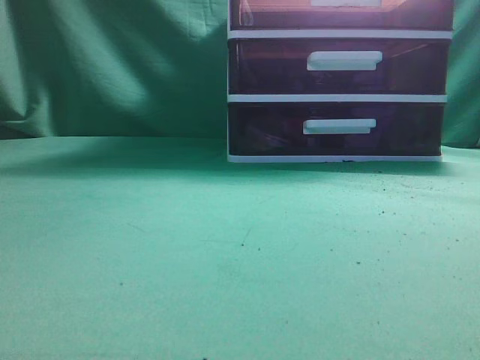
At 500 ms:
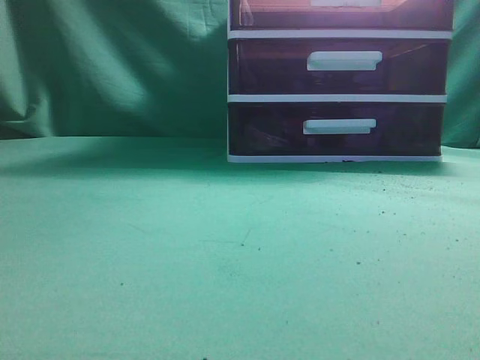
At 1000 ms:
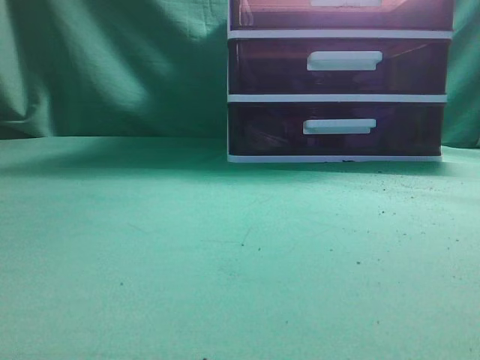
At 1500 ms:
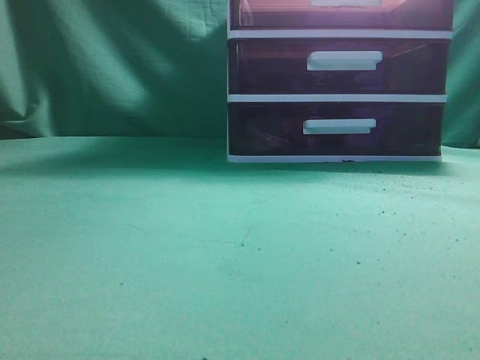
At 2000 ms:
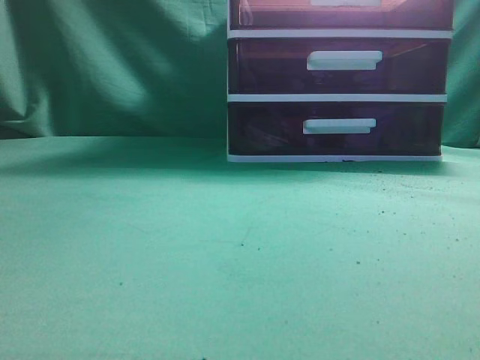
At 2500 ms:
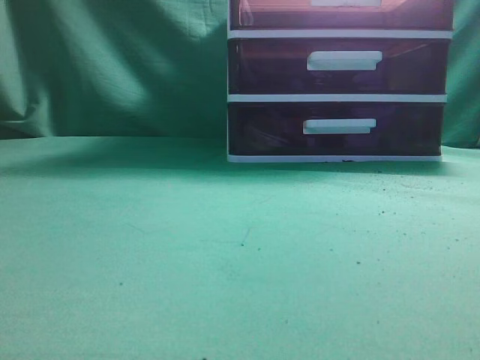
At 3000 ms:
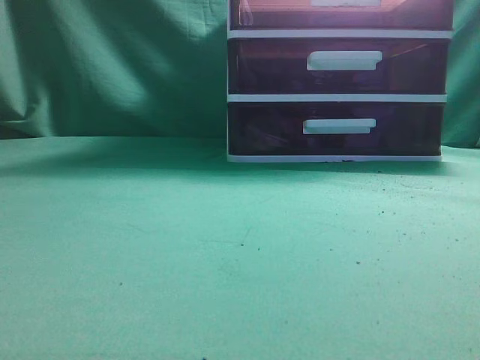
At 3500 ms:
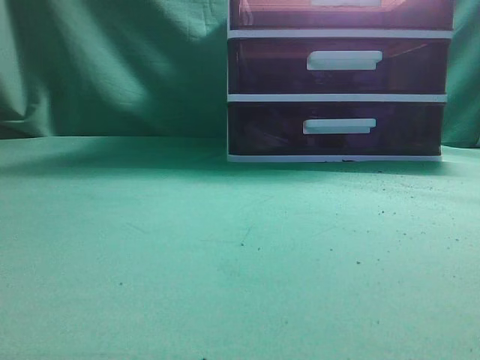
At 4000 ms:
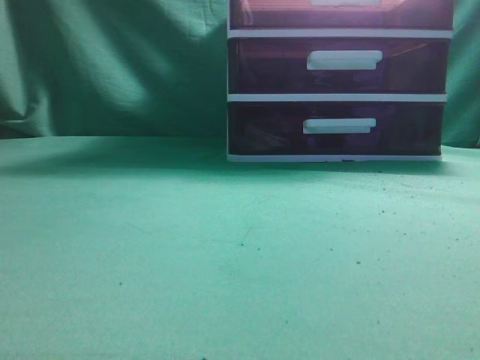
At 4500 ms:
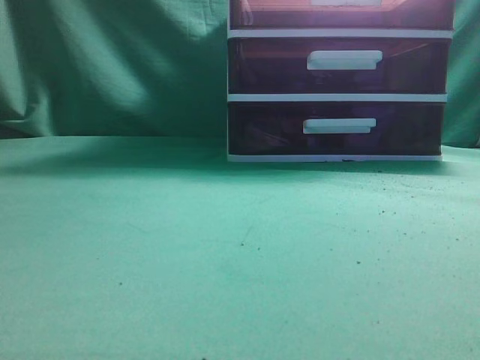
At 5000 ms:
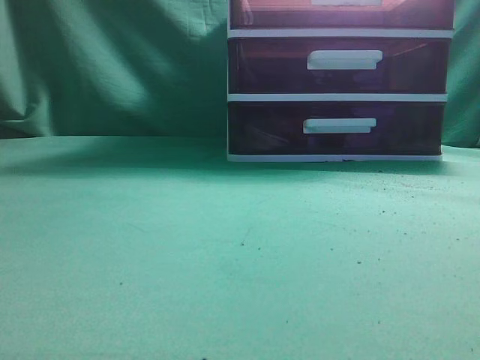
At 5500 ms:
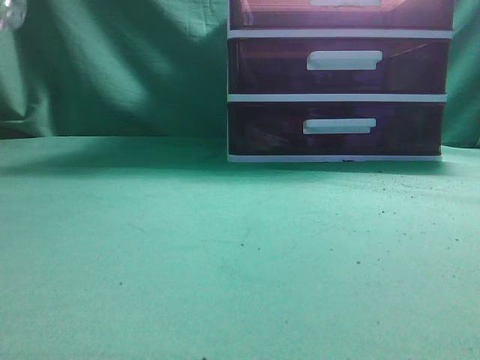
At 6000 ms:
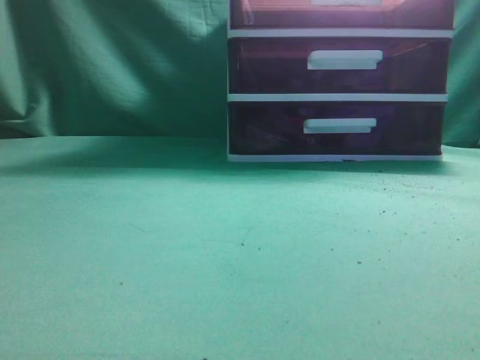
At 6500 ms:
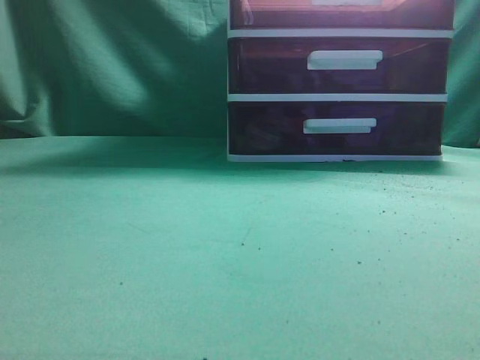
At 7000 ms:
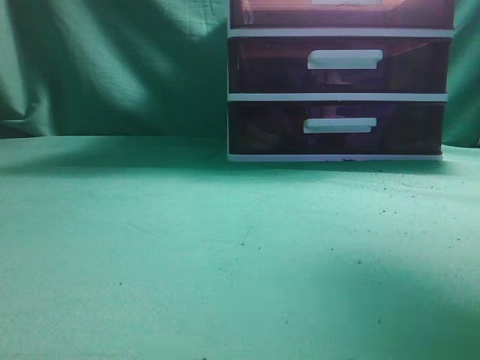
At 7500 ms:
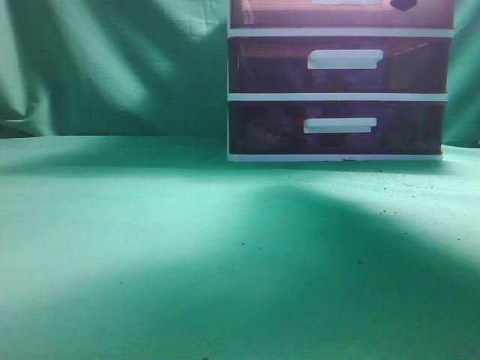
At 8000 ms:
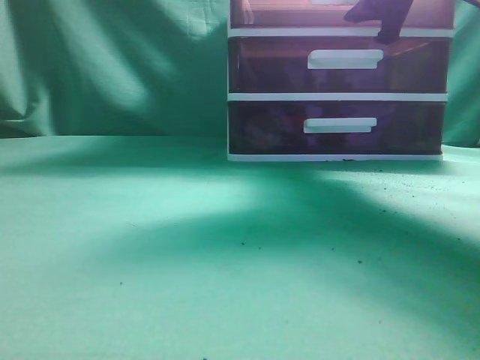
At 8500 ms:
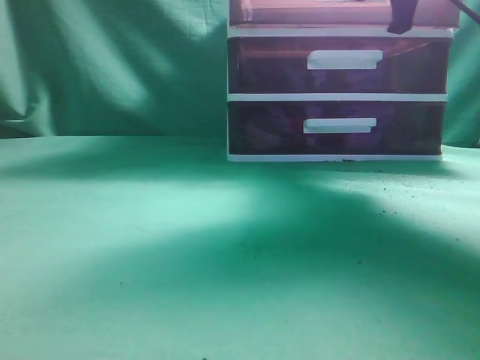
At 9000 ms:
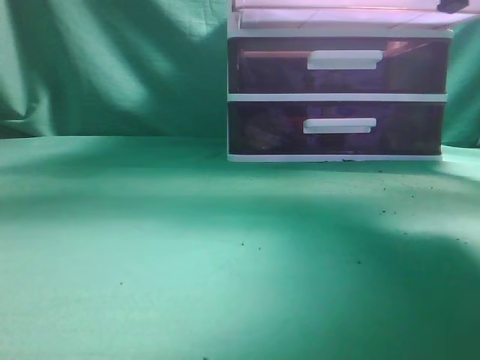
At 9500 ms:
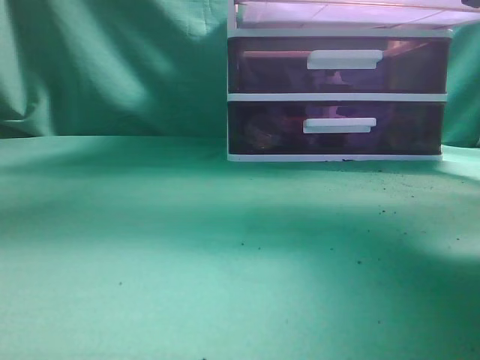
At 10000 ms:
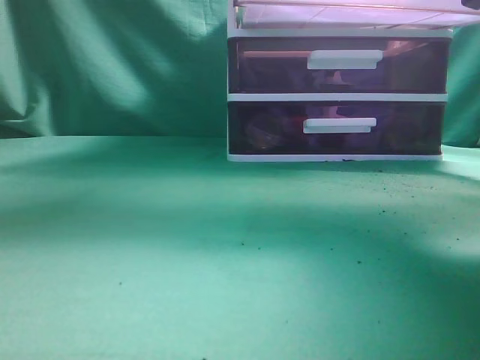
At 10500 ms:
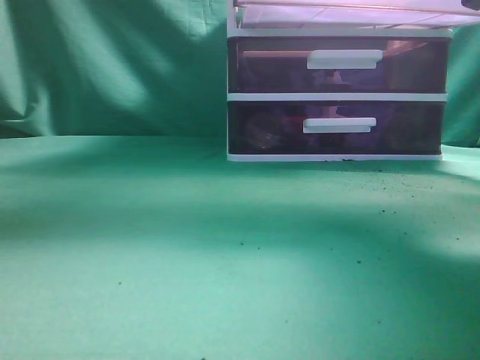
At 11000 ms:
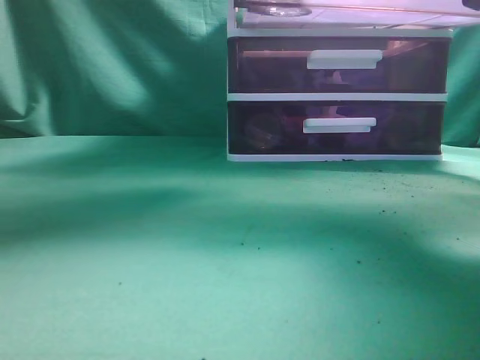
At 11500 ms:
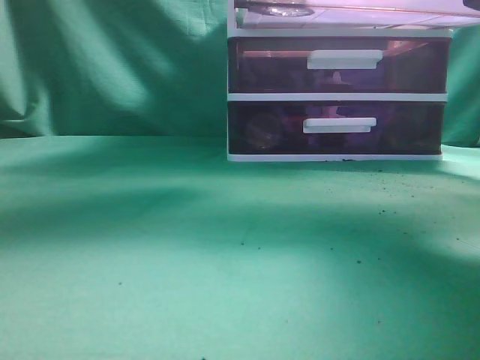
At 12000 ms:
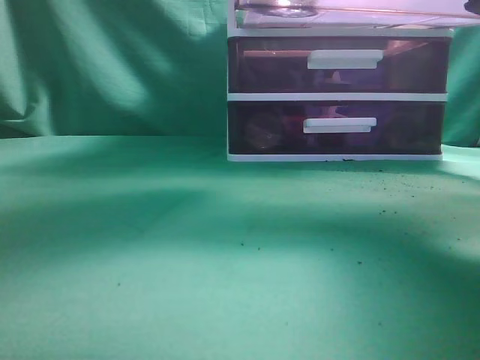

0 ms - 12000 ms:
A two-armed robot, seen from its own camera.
Task of the whole recording: place the water bottle into the drawer.
Step, 0 ms - 9000 ms: Open the drawer.
6000 ms - 8000 ms: The right gripper shifts roughly 35 cm forward, and opens up.
8000 ms - 10000 ms: The right gripper heads backward, covering some 15 cm. Meanwhile the left gripper shifts roughly 15 cm upward and to the right.
10000 ms - 12000 ms: The left gripper moves to the right, downward and forward, roughly 25 cm, and opens its fingers.

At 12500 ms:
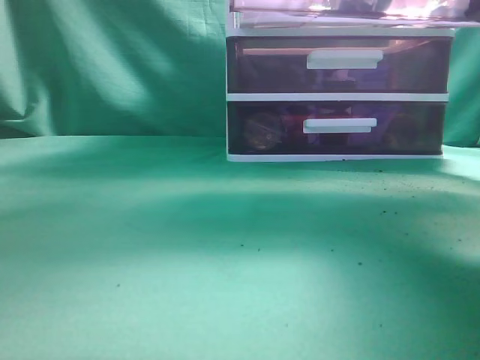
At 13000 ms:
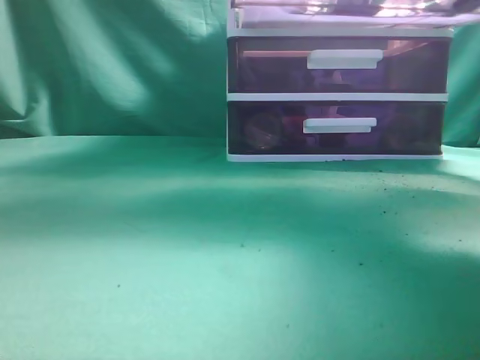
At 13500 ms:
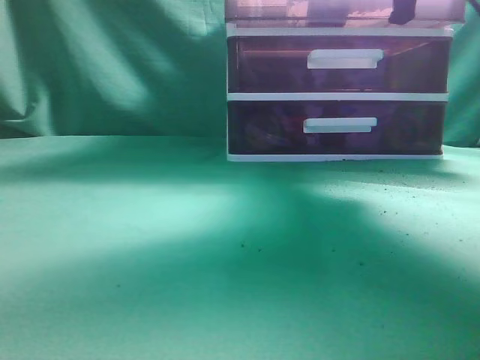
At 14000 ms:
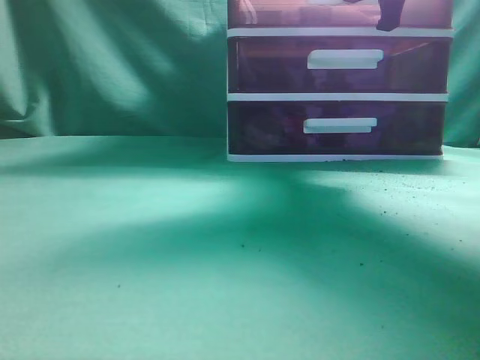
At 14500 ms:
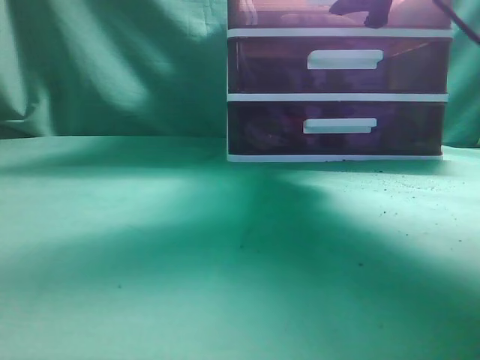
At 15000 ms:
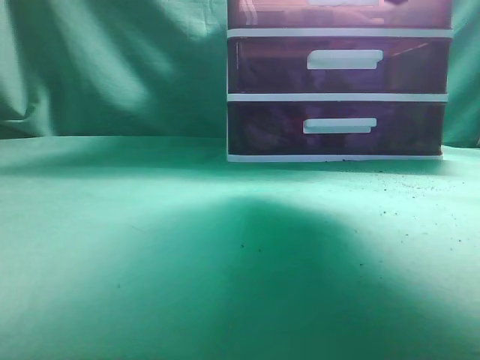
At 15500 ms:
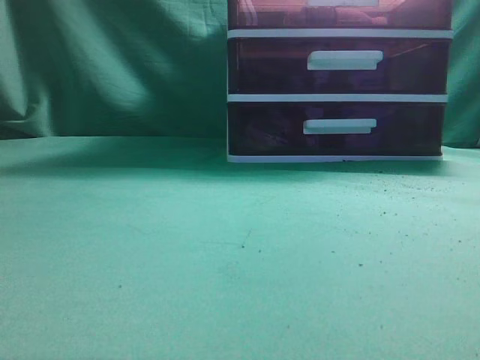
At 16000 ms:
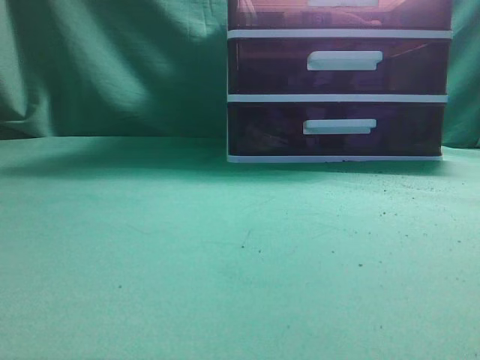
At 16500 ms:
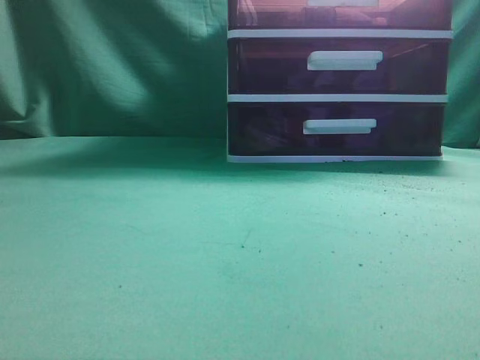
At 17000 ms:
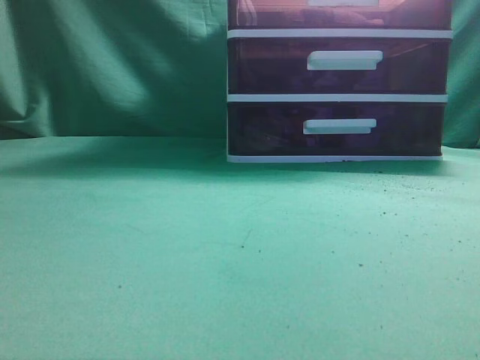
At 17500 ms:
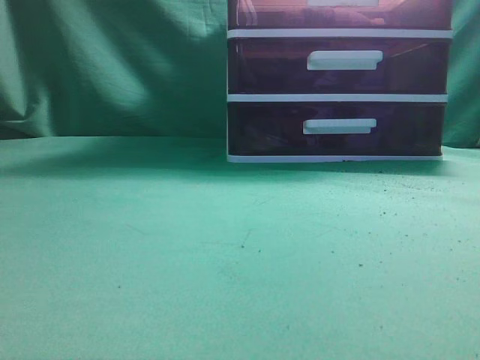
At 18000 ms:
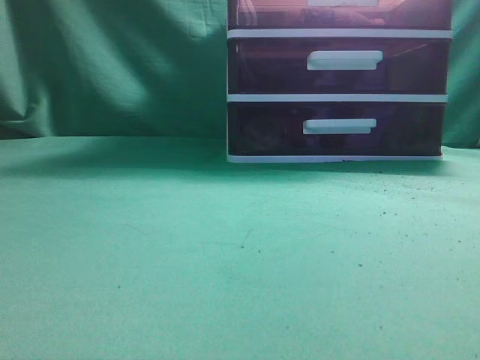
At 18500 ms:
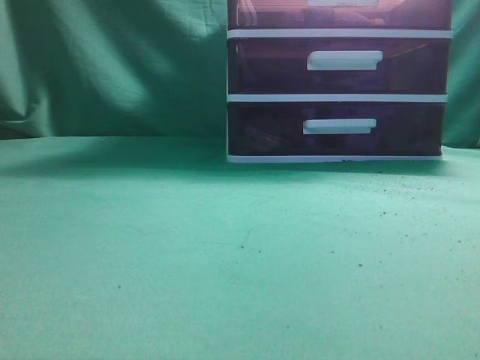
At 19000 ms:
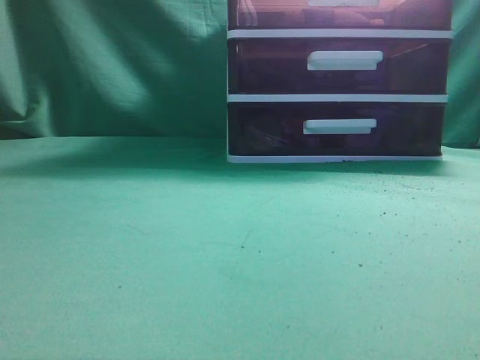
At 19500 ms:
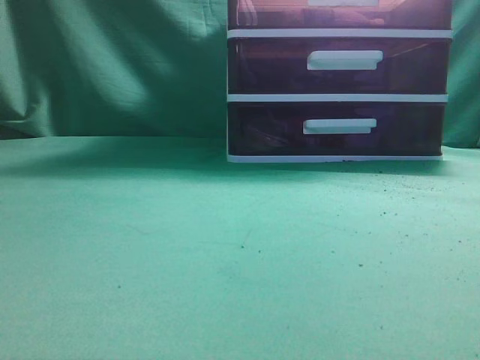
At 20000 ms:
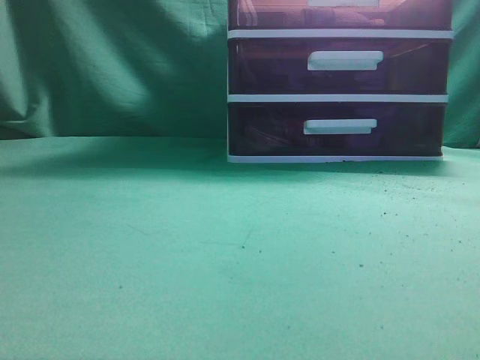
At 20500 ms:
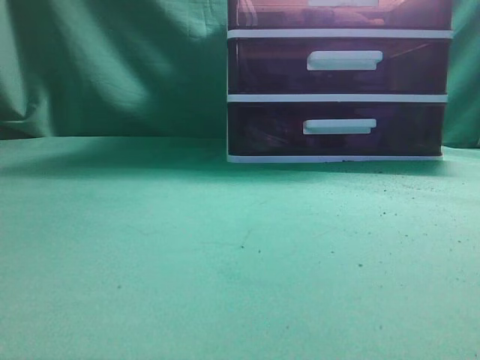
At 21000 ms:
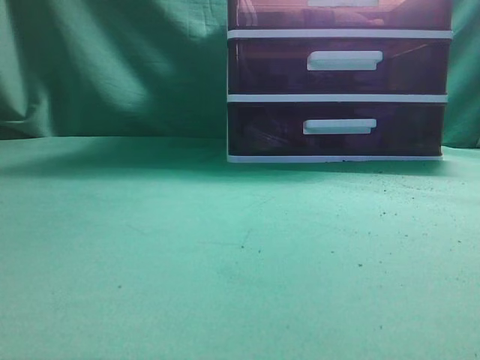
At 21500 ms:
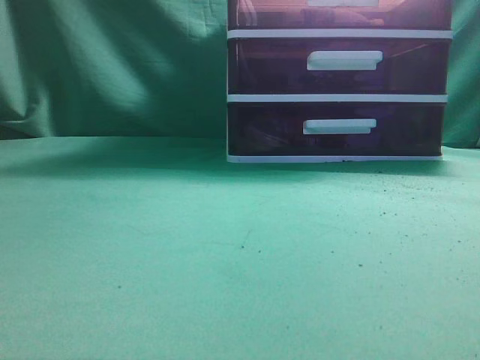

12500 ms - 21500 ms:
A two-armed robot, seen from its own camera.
Task of the whole recording: place the water bottle into the drawer.
Step, 13000 ms - 14500 ms: Close the drawer.
12500 ms - 14500 ms: The right gripper shifts roughly 15 cm forward, and opens up; the left gripper travels to the left and backward by some 30 cm, and closes its fingers.
14500 ms - 17000 ms: The right gripper moves backward, some 35 cm, and closes up. The left gripper heads downward, backward and to the left, covering some 30 cm.
